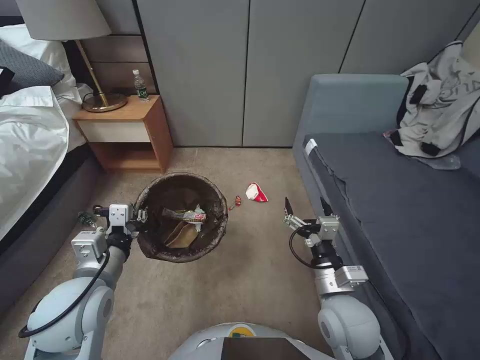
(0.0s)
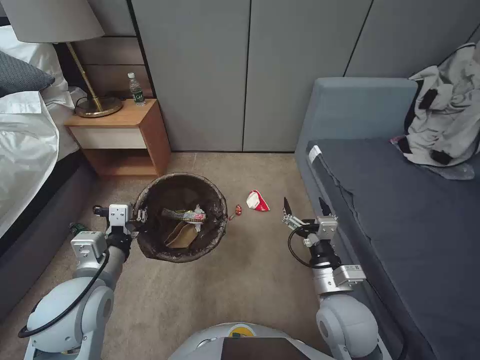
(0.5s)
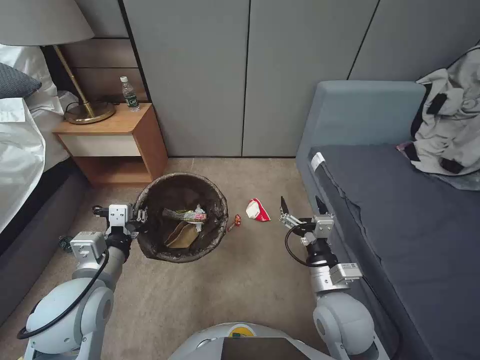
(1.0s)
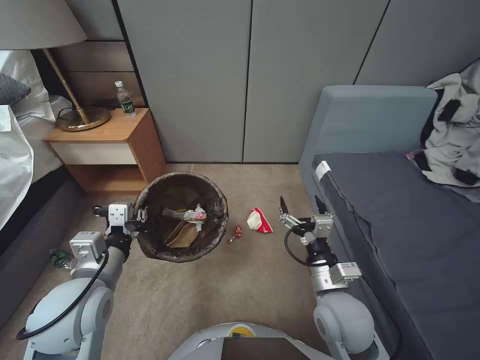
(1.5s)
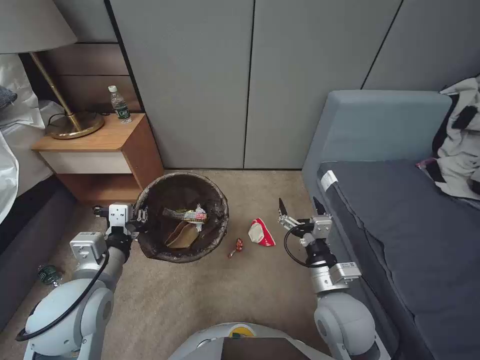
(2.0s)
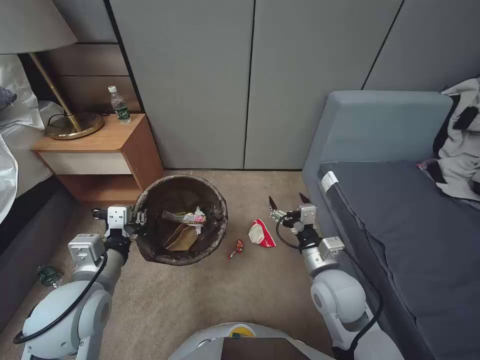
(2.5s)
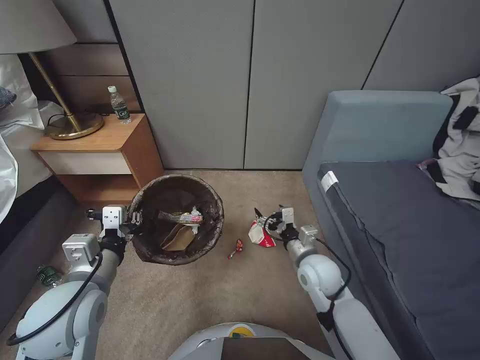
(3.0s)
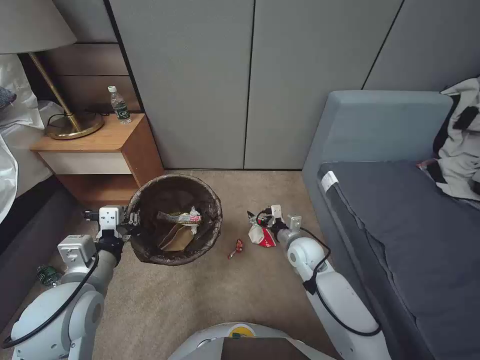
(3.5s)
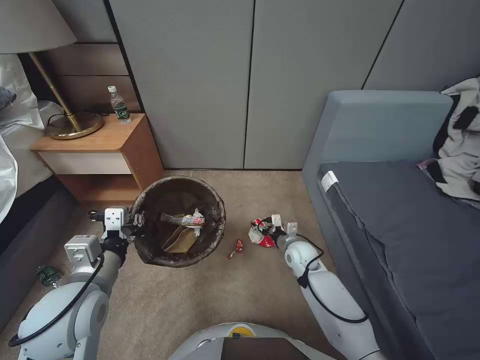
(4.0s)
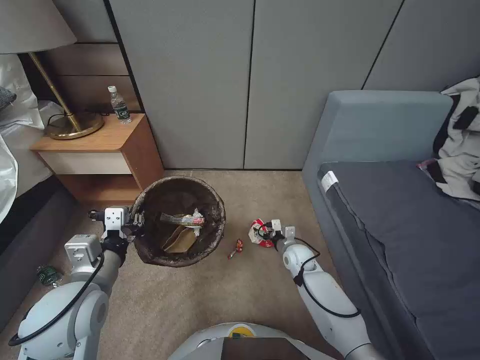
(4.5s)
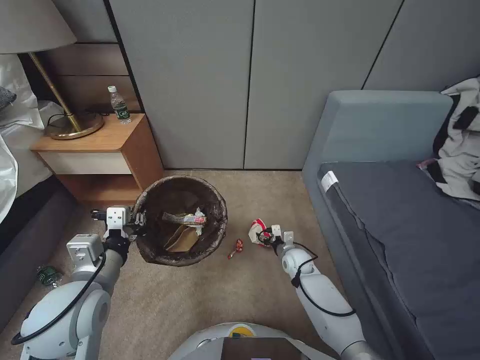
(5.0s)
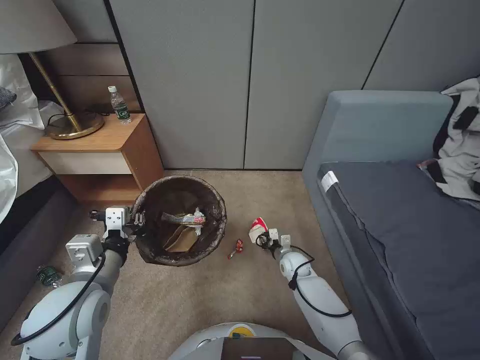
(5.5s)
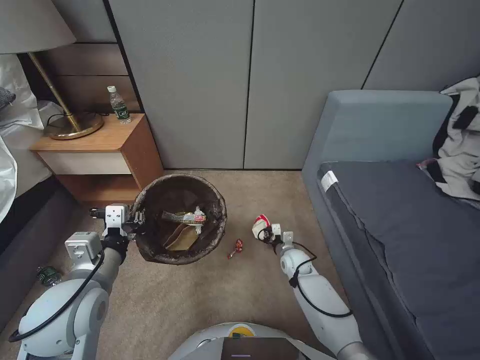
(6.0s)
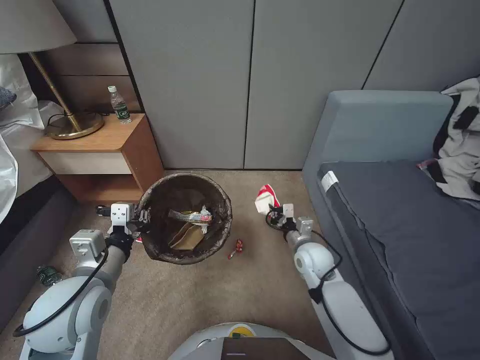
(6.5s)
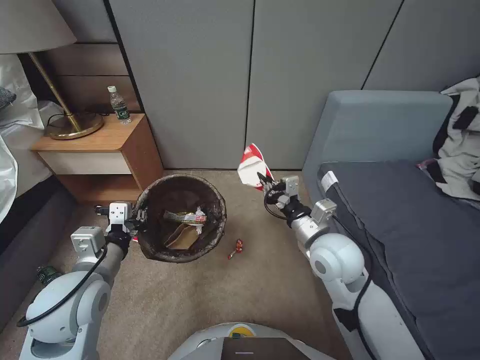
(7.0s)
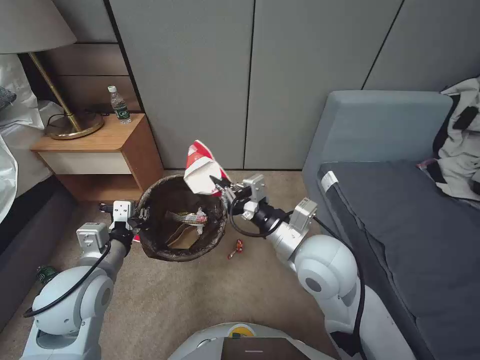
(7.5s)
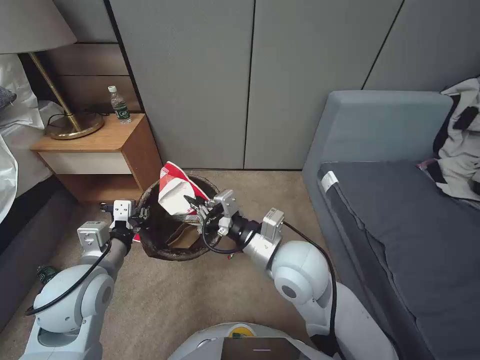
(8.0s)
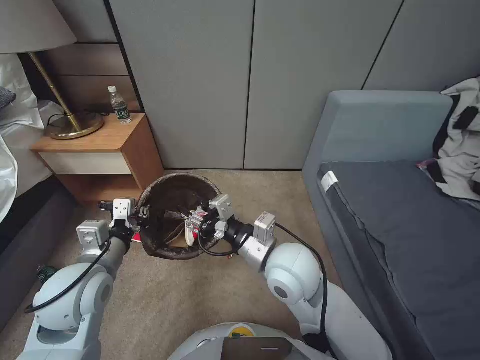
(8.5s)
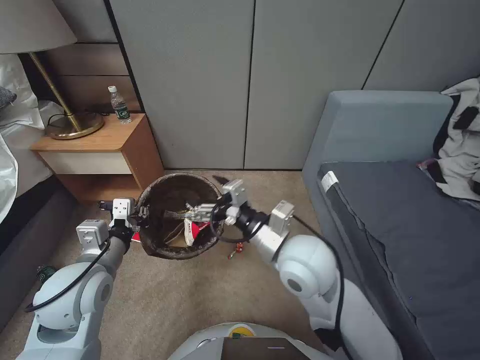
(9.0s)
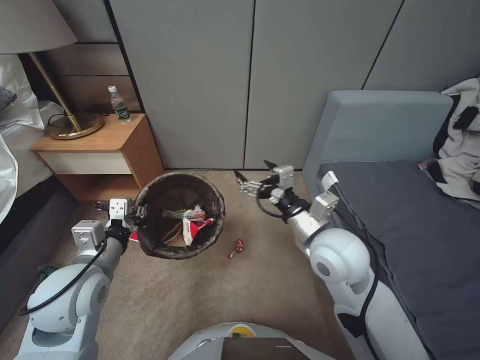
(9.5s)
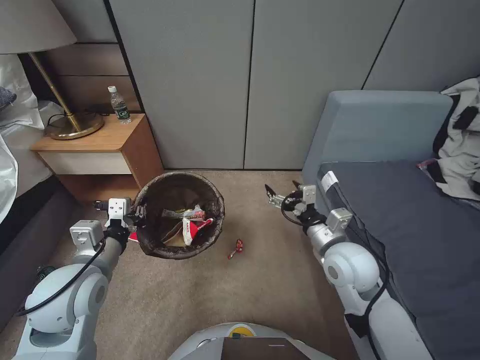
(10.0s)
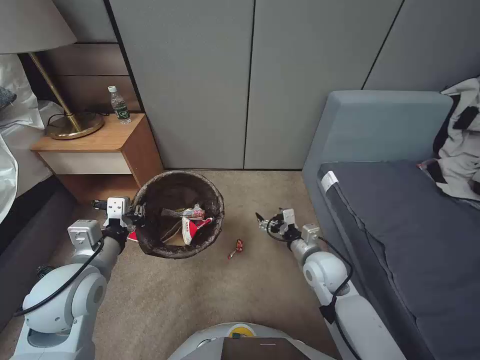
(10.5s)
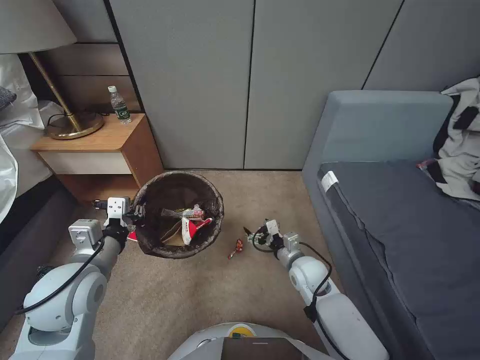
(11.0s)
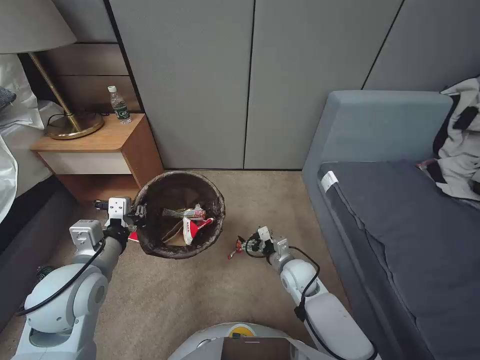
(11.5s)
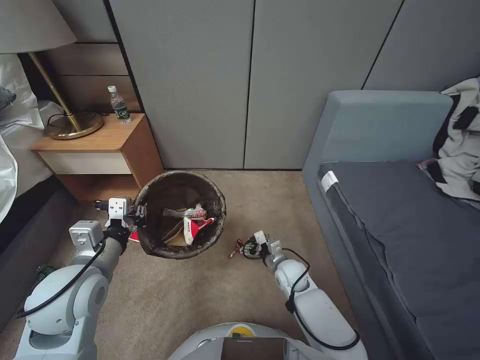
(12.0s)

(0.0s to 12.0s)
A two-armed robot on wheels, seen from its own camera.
Task of the whole recording: Pick up the trash bin, then pick up the garbage from the floor and place it into the trash bin.
2.0s - 4.0s: The right gripper shifts roughly 25 cm forward and downward.
4.0s - 6.0s: The right gripper heads downward, covering some 10 cm, and closes its fingers.
6.0s - 8.0s: The right gripper shifts approximately 35 cm upward.
8.0s - 10.0s: The right gripper heads to the right, covering approximately 10 cm, and opens.
10.0s - 12.0s: The right gripper moves downward, about 25 cm.

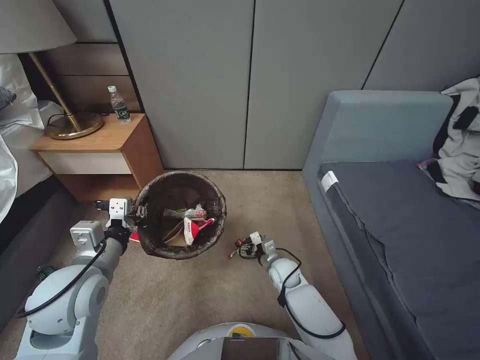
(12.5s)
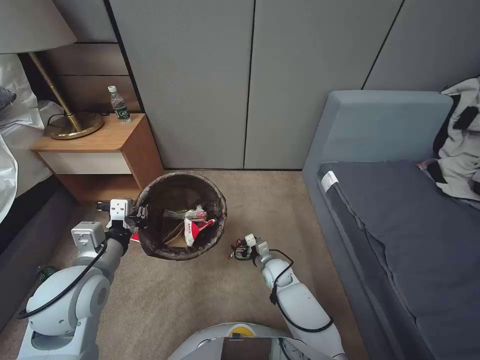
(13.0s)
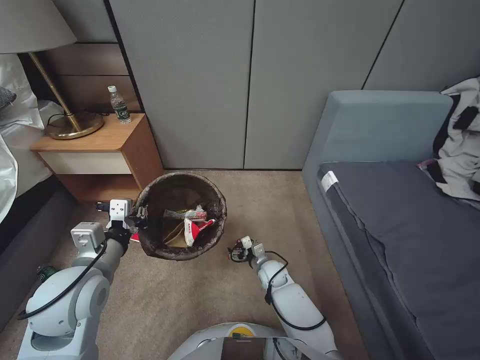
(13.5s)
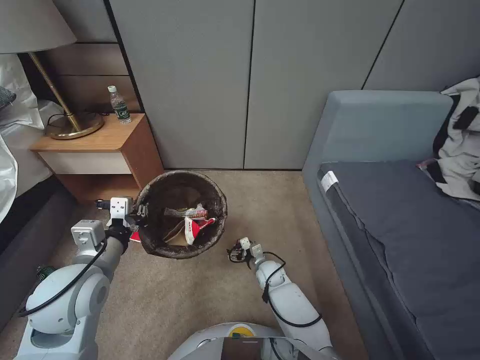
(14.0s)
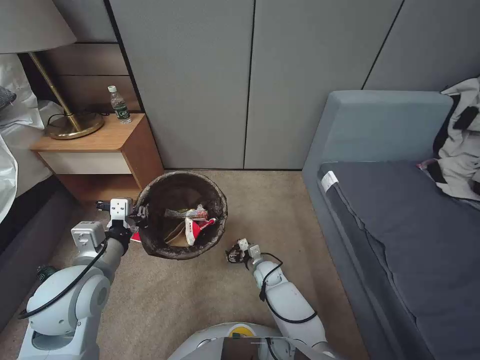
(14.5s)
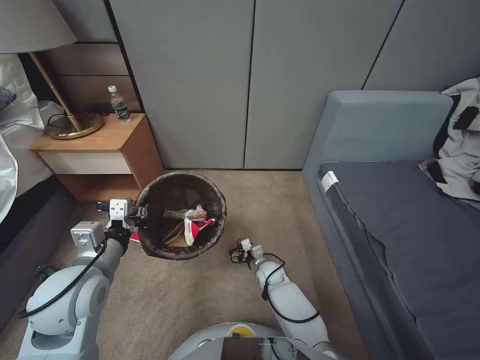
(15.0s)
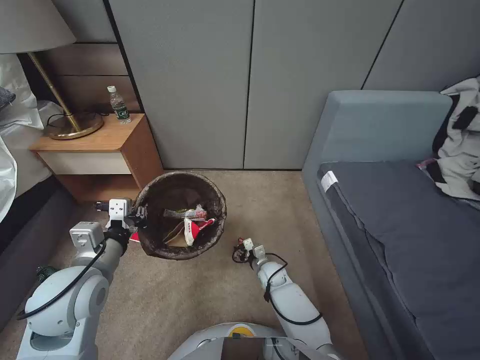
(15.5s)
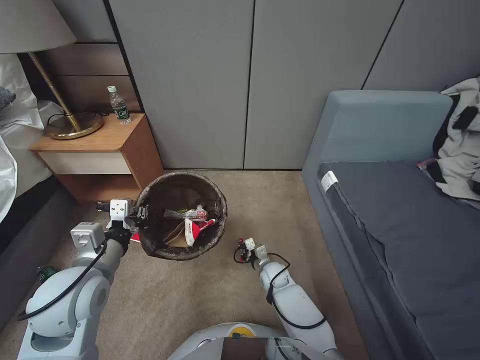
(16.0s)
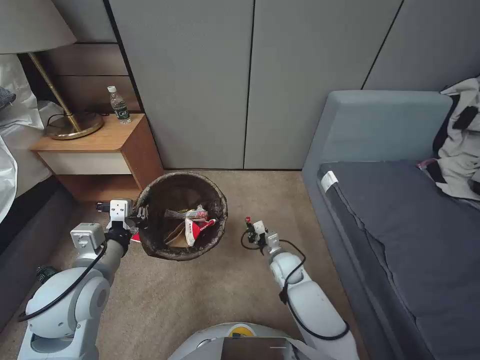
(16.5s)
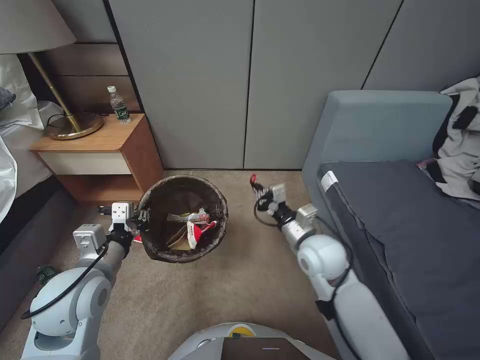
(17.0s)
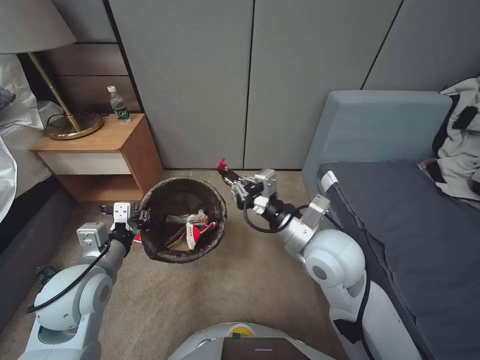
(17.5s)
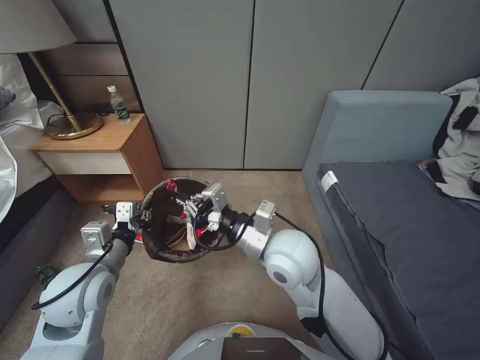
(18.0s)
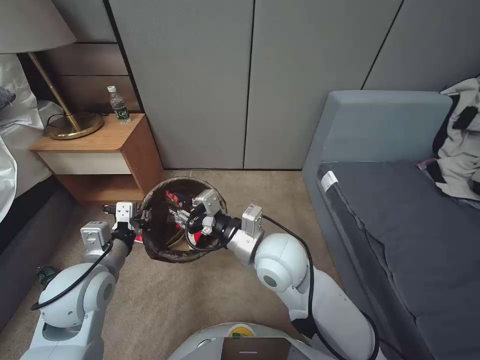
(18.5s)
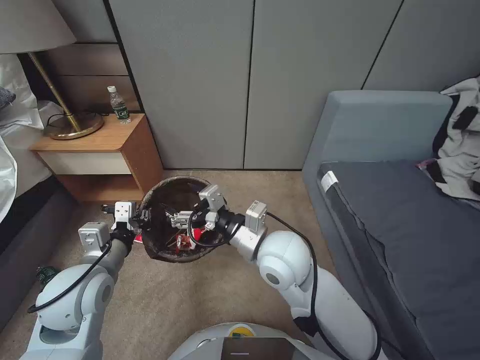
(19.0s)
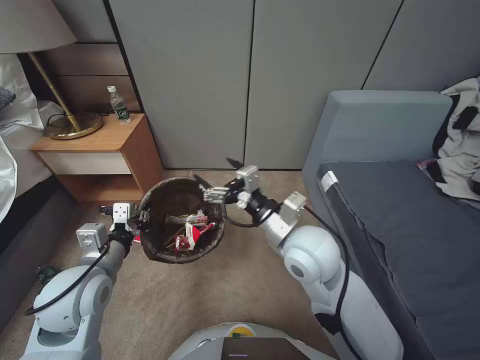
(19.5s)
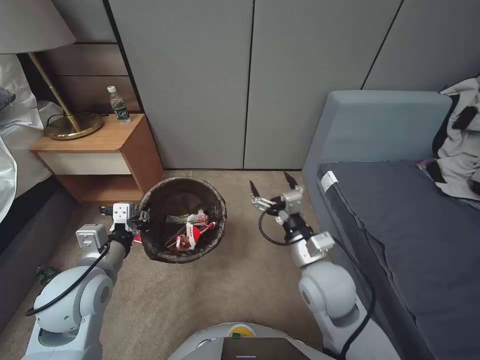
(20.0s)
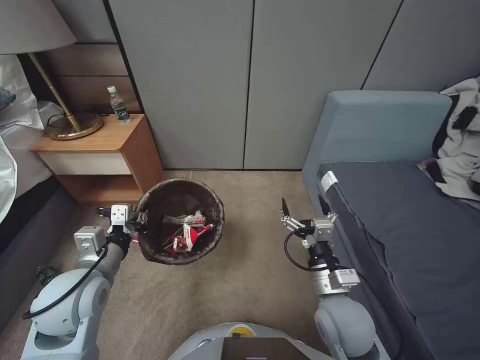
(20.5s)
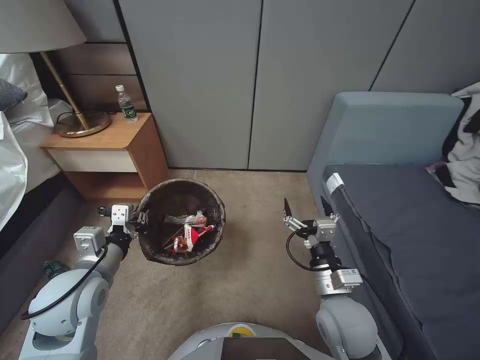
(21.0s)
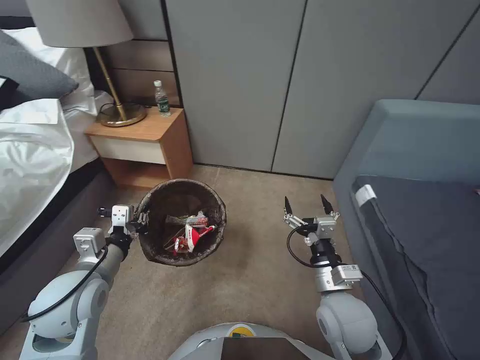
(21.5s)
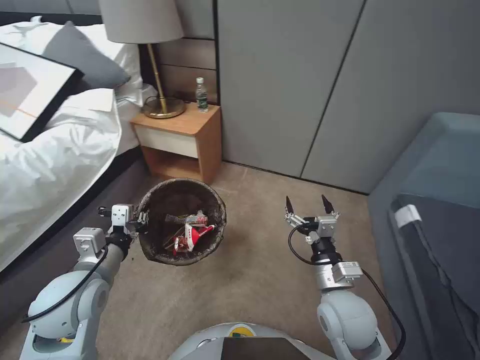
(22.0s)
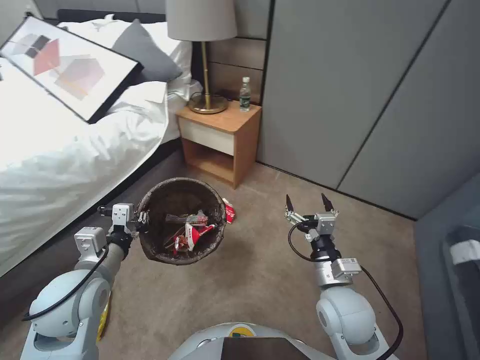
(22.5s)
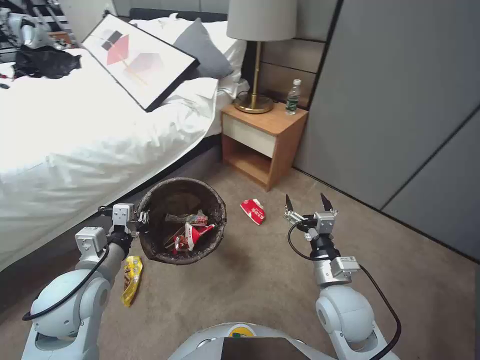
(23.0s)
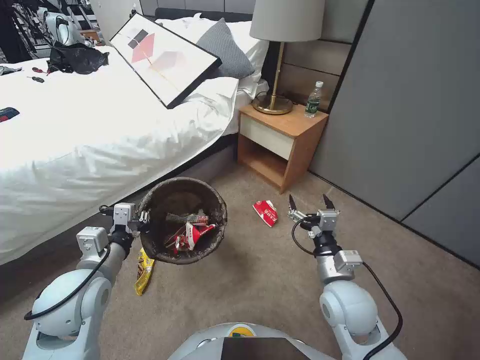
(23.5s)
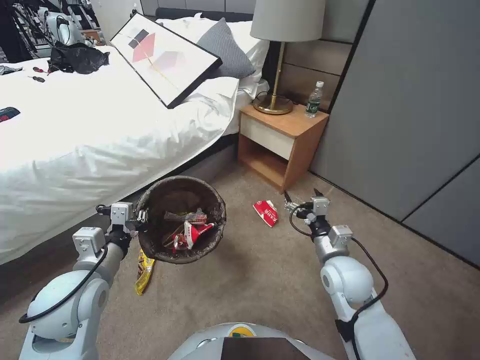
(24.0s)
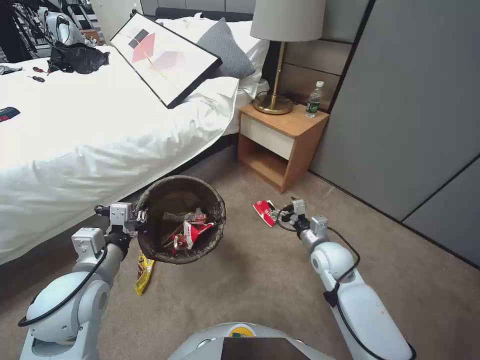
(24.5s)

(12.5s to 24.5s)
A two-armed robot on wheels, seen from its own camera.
Task of the whole recording: Pick up the trash bin, then pick up the garbage from the floor and place it into the trash bin.
12.5s - 14.5s: The right gripper goes about 5 cm downward.
14.5s - 16.5s: The right gripper shifts about 5 cm upward, and closes.
16.5s - 18.5s: The right gripper shifts roughly 30 cm upward.
18.5s - 20.5s: The right gripper goes about 20 cm to the right, downward and backward, and opens its fingers.
22.5s - 24.5s: The right gripper is displaced forward by about 10 cm.

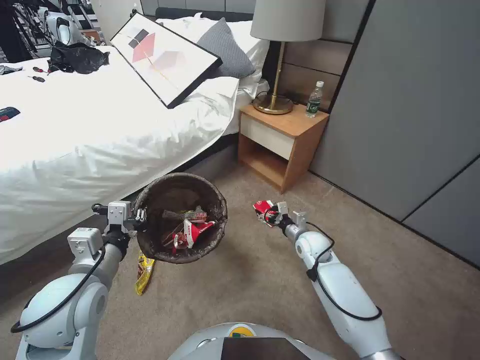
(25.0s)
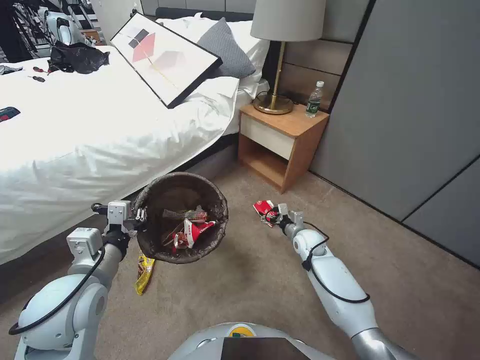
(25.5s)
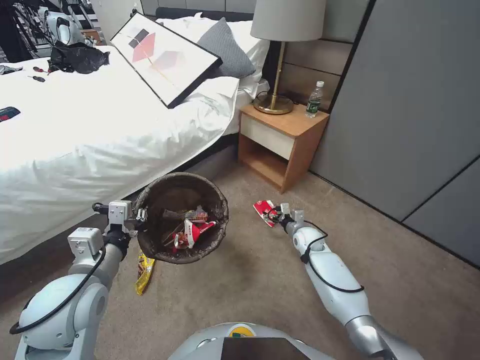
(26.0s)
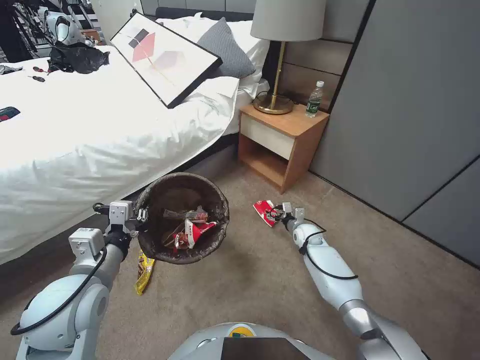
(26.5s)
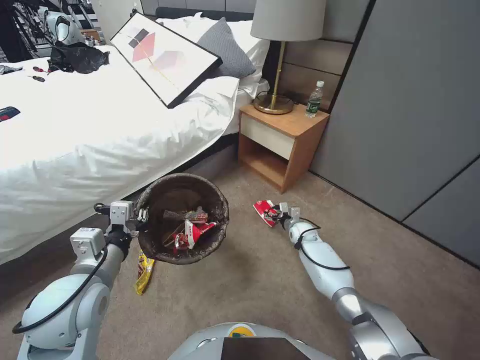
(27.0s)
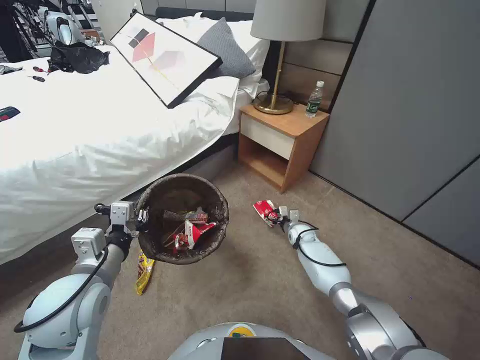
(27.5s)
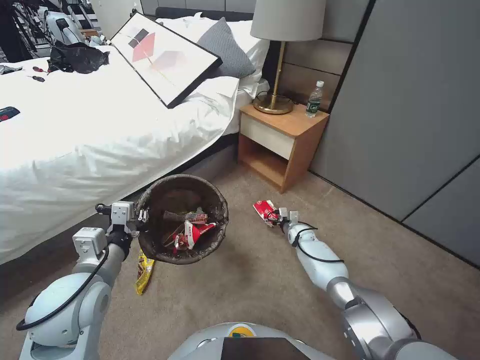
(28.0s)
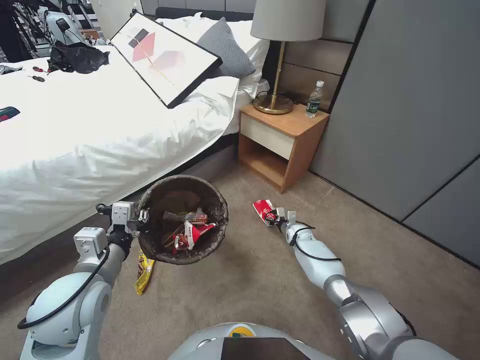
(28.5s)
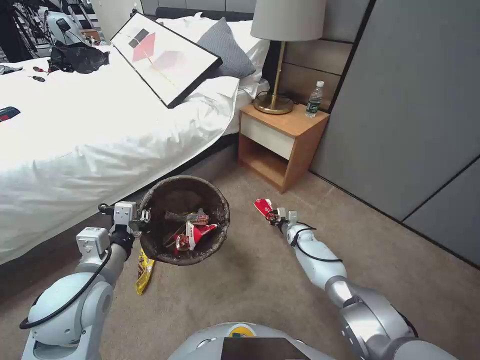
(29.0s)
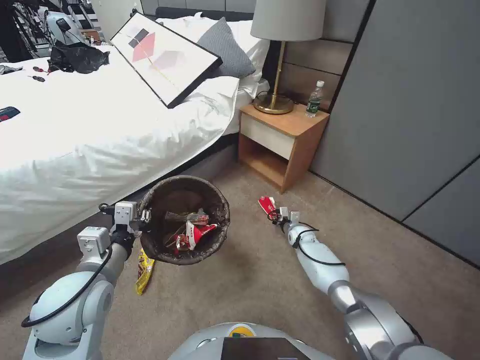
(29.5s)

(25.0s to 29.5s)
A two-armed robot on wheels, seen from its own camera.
Task of the whole recording: Pick up the trash bin, then pick up the garbage from the floor and place it into the trash bin.
25.0s - 27.0s: The right gripper is displaced downward and forward by roughly 15 cm.
27.0s - 29.5s: The right gripper closes its fingers.
